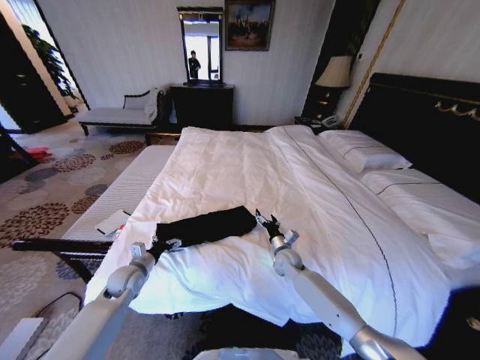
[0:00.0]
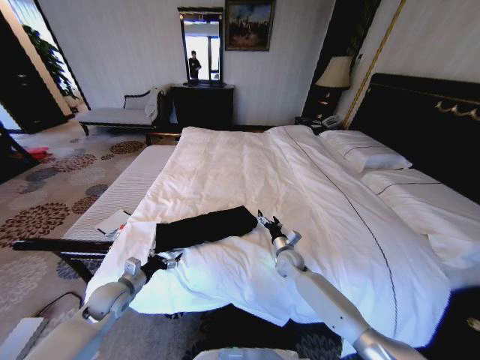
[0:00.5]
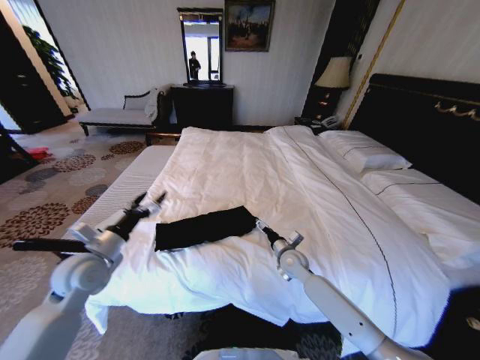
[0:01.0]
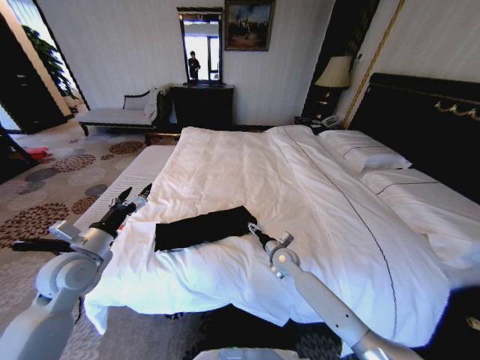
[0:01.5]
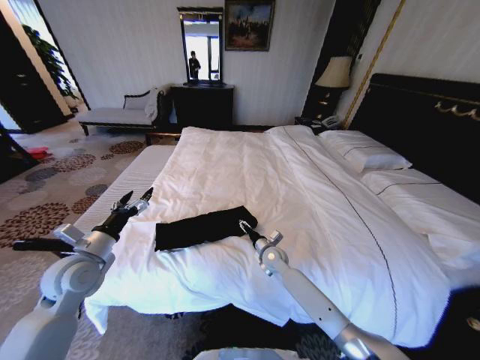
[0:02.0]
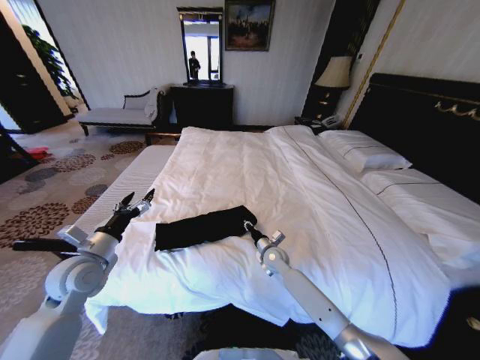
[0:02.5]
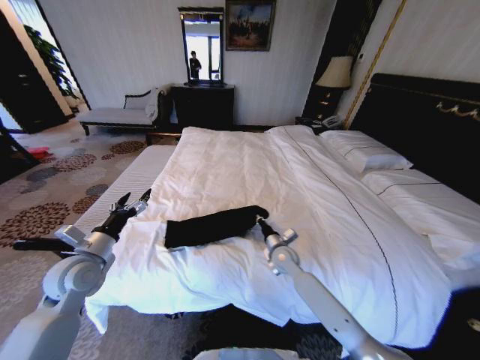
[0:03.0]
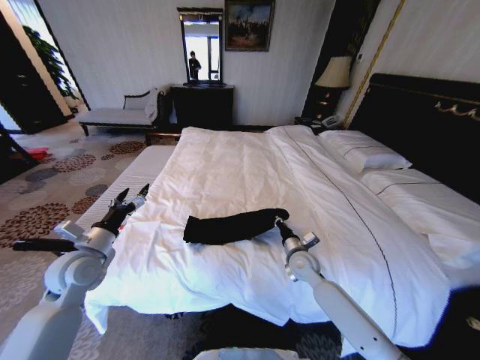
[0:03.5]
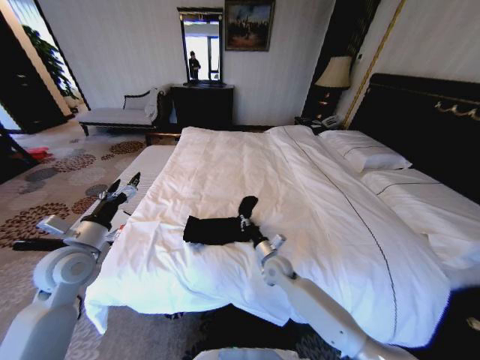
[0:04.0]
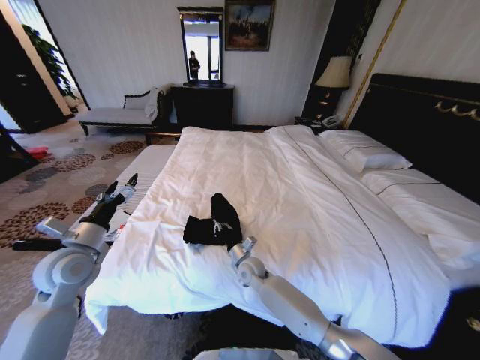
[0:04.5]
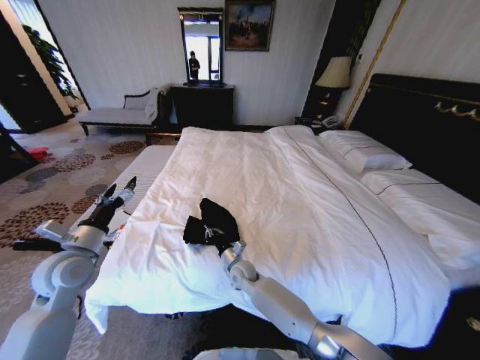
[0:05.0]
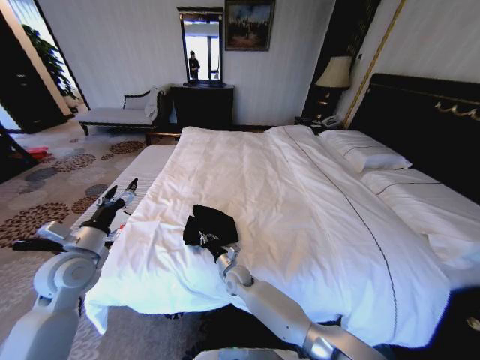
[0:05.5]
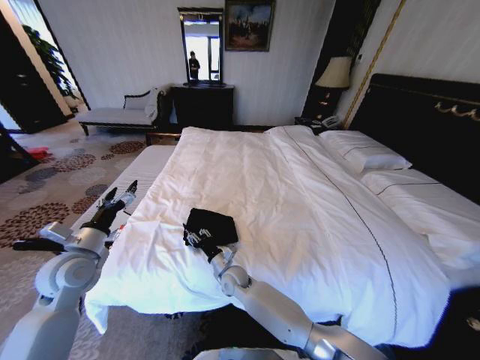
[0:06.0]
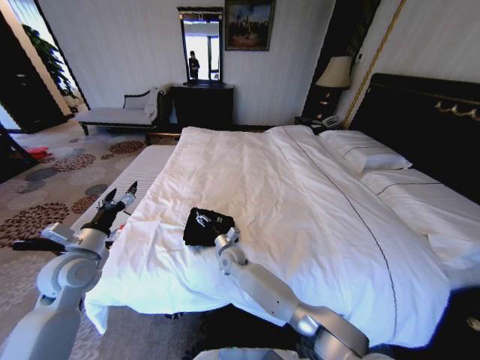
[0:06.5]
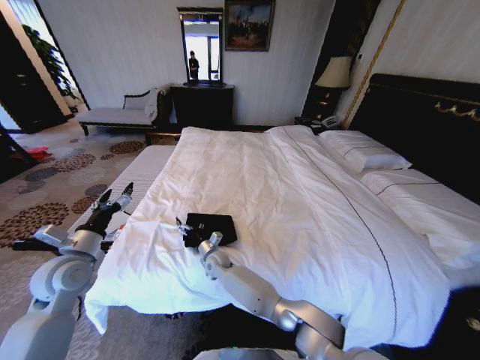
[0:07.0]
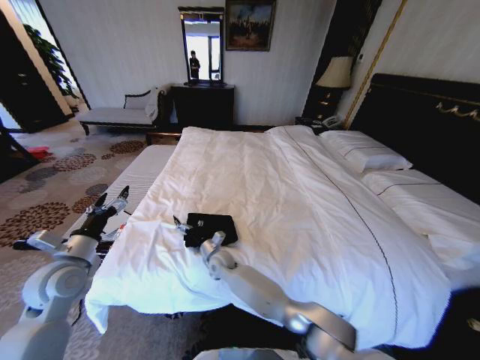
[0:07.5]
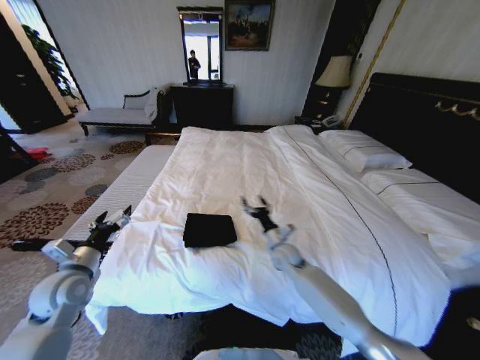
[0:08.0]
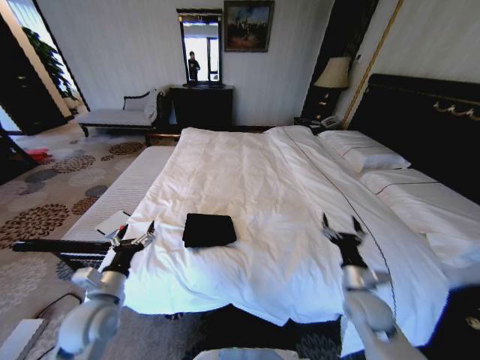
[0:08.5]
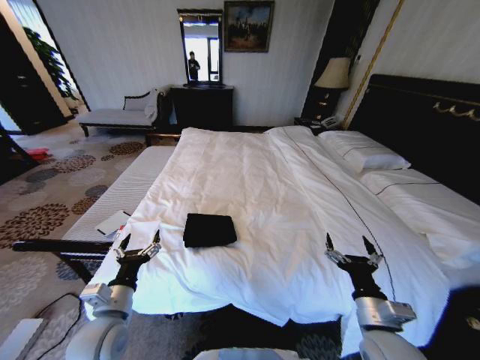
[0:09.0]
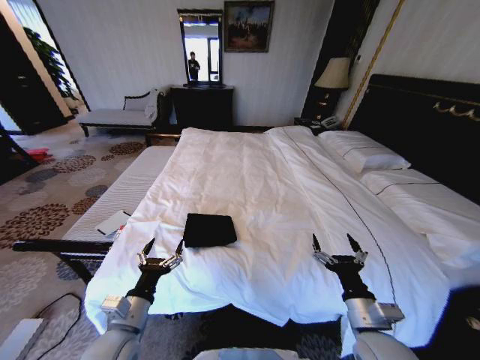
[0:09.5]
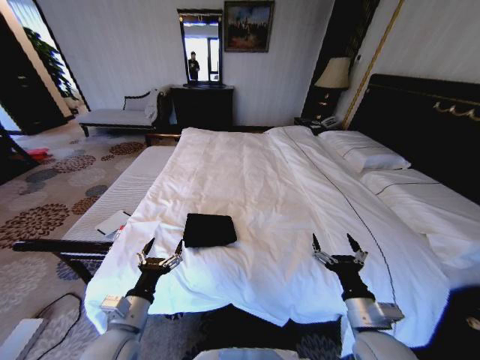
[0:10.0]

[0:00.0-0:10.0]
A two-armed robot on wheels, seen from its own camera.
Task of the whole recording: Fold the clothes on the bed.
0:00.0 to 0:02.0: The right gripper moves to the left, roughly 5 cm. Meanwhile the left gripper goes approximately 15 cm upward.
0:02.0 to 0:04.0: The right gripper moves approximately 5 cm to the right and comes back, and closes its fingers.
0:04.0 to 0:06.0: The right gripper shifts some 15 cm to the left, and opens its fingers.
0:06.0 to 0:08.0: The left gripper ends up about 5 cm from where it was; the right gripper moves to the right, some 20 cm, and opens its fingers.
0:08.0 to 0:10.0: The right gripper heads backward, covering some 25 cm. The left gripper goes roughly 20 cm to the right and backward.
